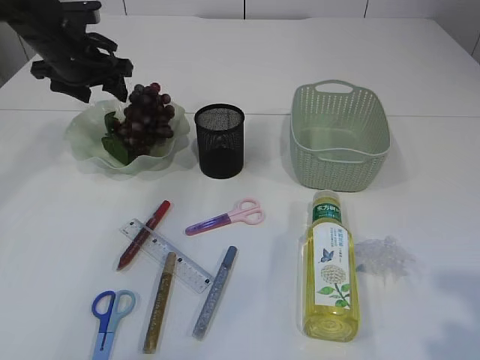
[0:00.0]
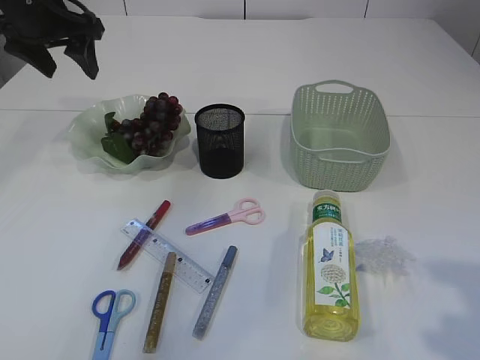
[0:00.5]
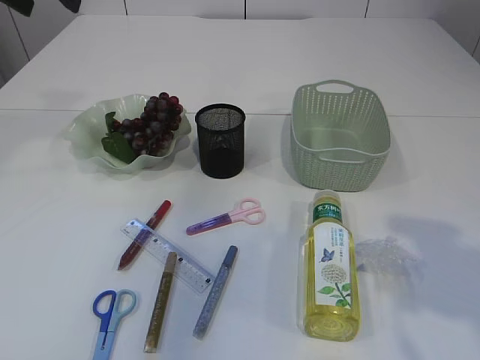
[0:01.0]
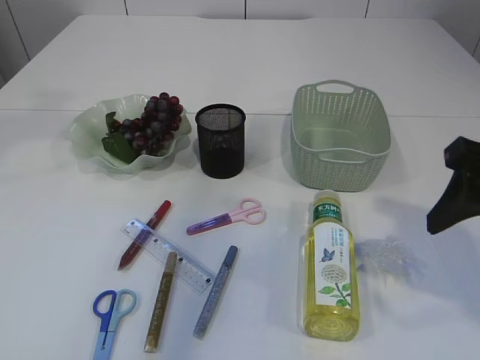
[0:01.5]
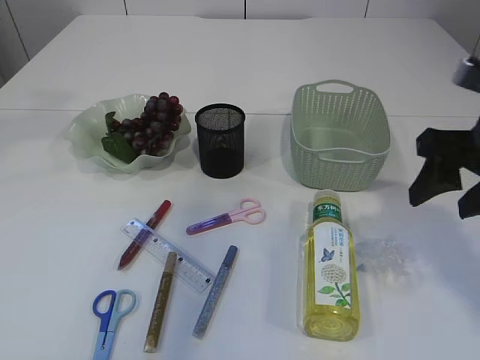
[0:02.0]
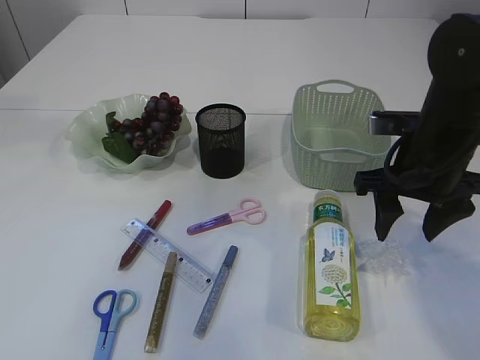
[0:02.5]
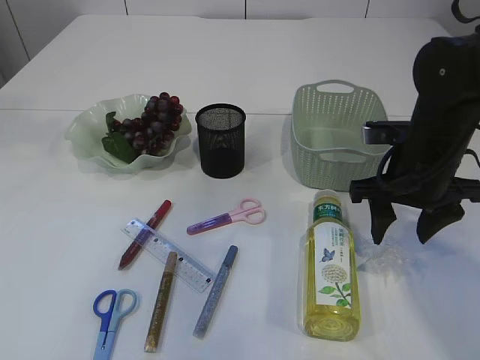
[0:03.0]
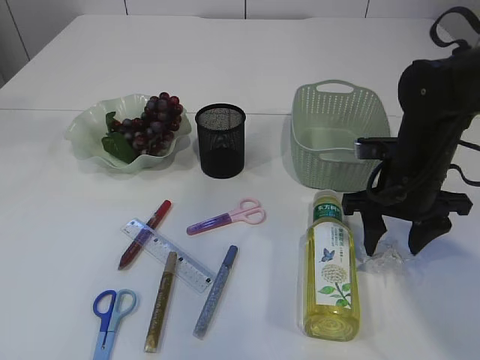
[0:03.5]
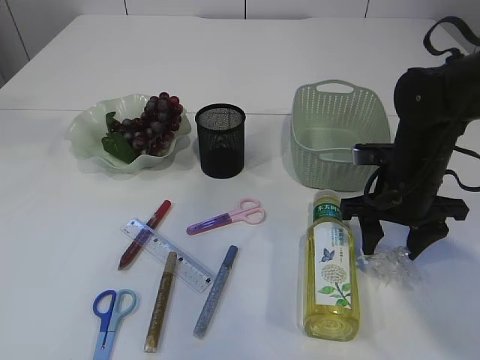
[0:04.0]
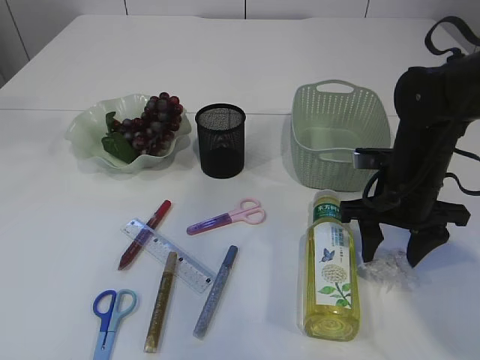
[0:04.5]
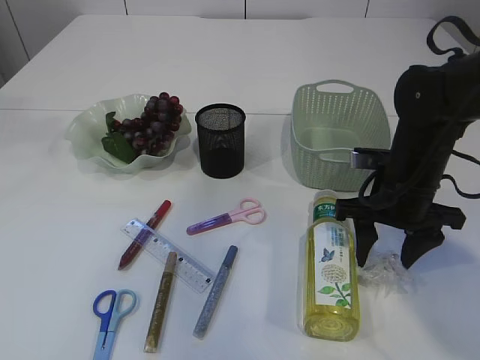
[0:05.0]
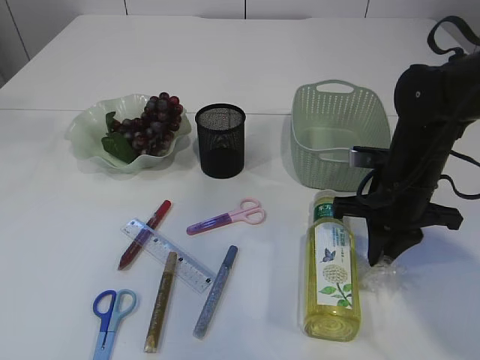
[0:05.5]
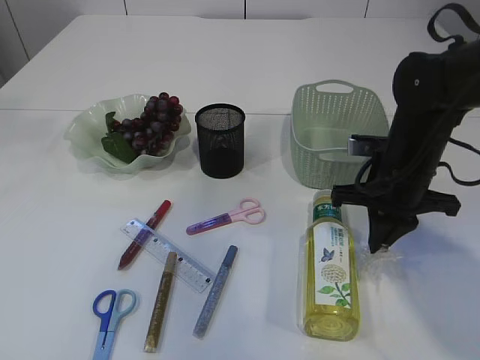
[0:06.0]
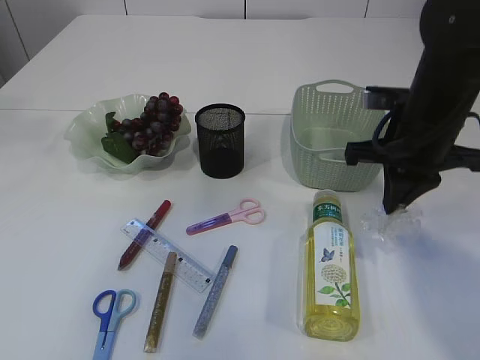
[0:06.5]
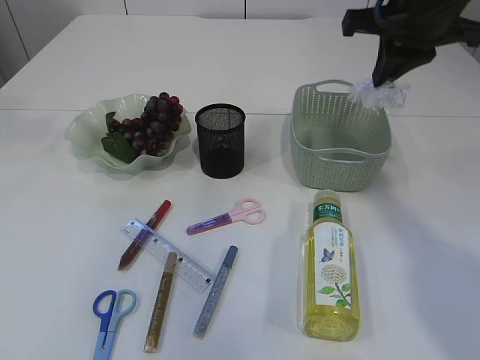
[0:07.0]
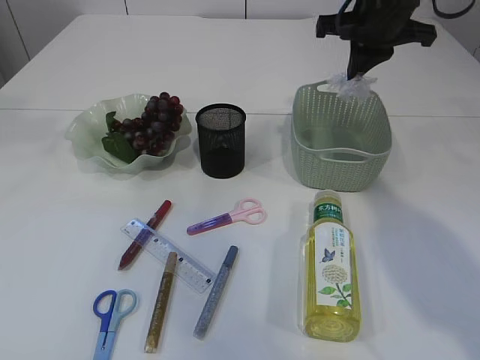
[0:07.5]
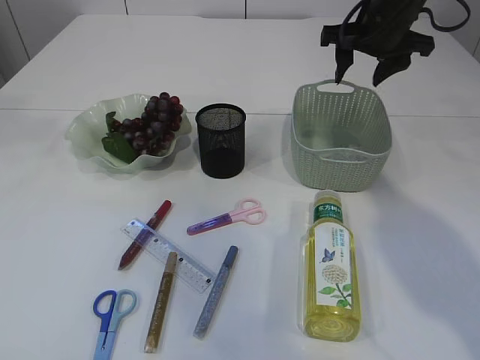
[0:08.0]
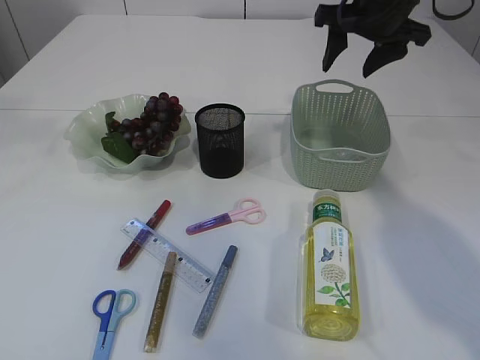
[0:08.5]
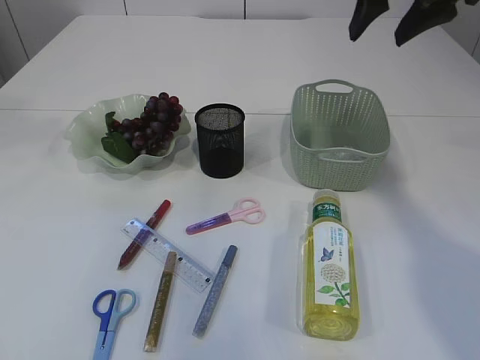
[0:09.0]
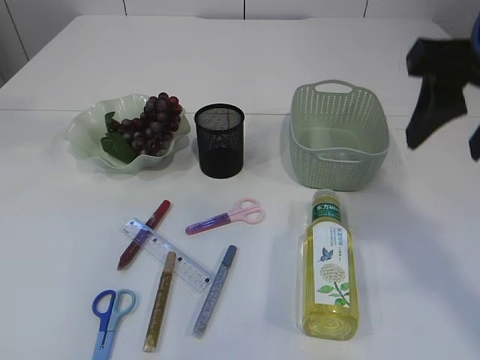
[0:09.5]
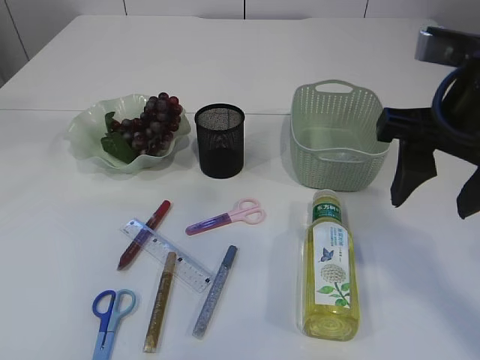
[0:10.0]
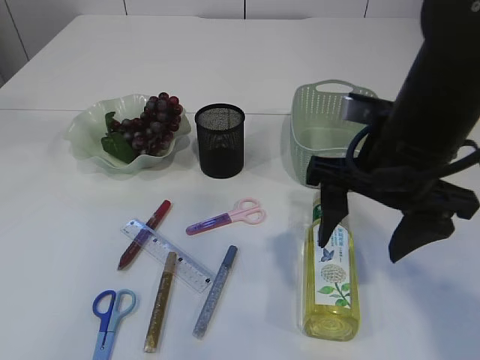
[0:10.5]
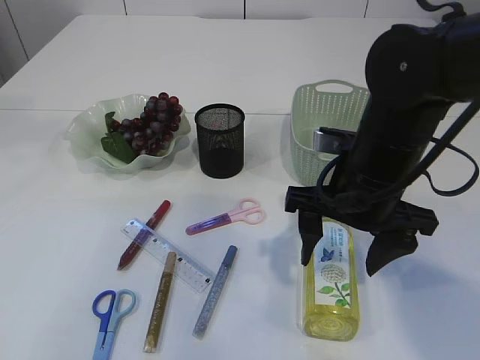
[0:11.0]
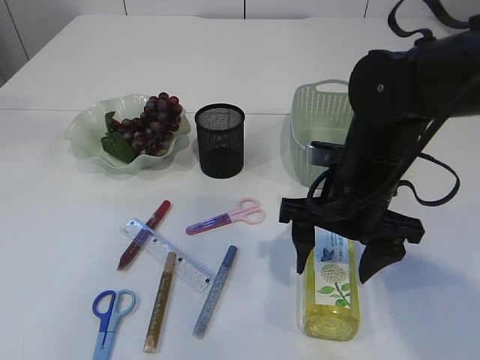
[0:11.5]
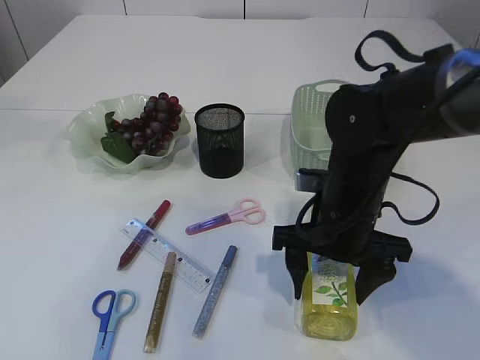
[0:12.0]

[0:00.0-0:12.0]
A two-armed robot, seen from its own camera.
Step, 0:00.5 to 0:06.5: Pick up the plastic.
Step, 0:07.0 to 0:08.5: Place the plastic in the basket.
0:00.0 to 0:02.0: The right gripper shifts about 20 cm forward. The left gripper heads upward and backward, covering about 25 cm.
0:02.0 to 0:04.0: The right gripper goes some 15 cm downward and forward.
0:04.0 to 0:06.0: The right gripper closes its fingers.
0:06.0 to 0:08.0: The right gripper heads forward and upward, covering about 20 cm, and opens up.
0:08.0 to 0:10.0: The right gripper goes roughly 25 cm backward.
0:10.0 to 0:12.0: The right gripper shifts approximately 15 cm downward and to the left.

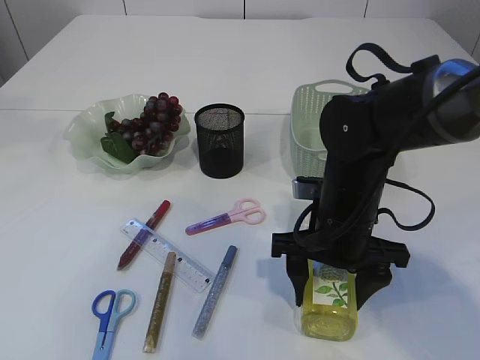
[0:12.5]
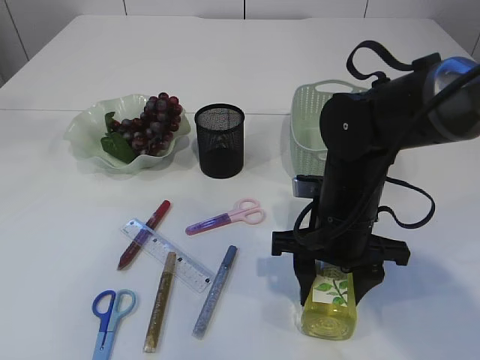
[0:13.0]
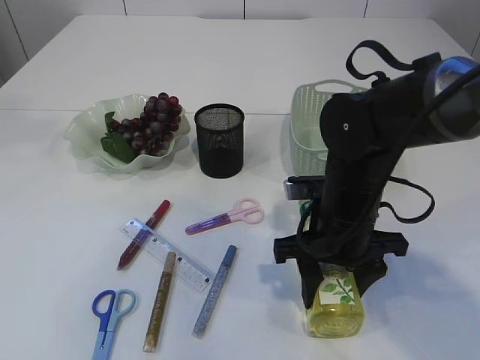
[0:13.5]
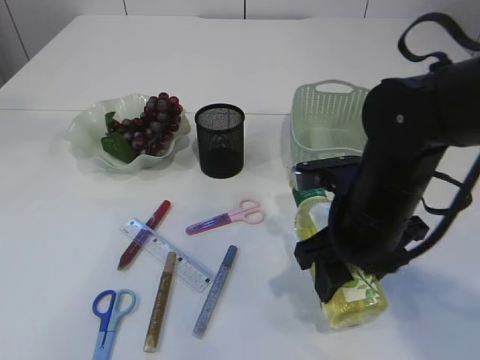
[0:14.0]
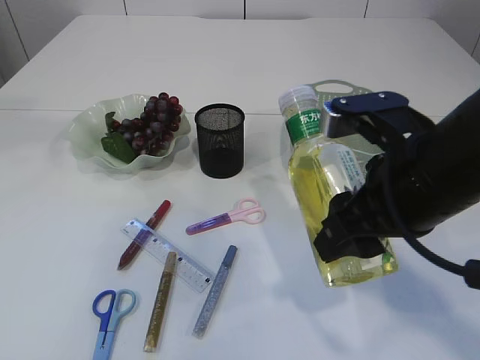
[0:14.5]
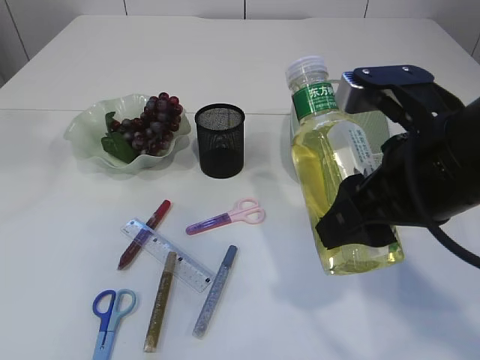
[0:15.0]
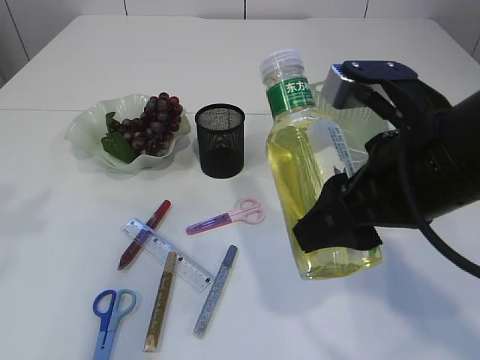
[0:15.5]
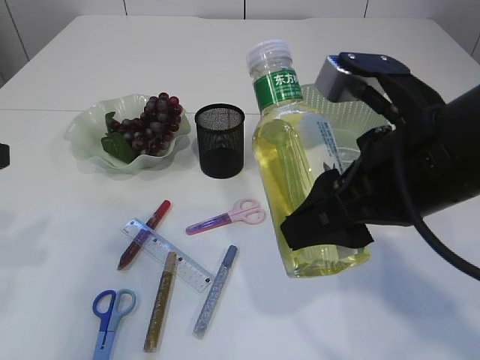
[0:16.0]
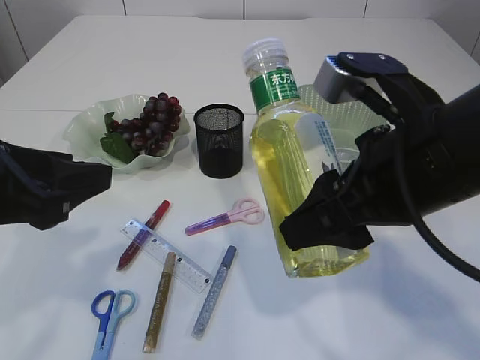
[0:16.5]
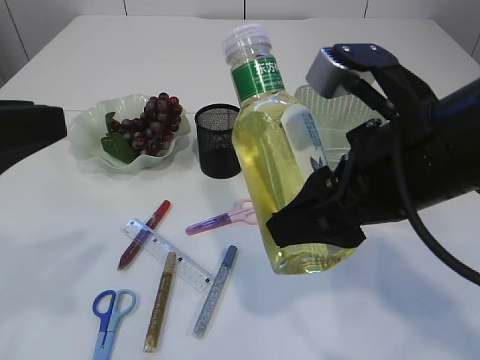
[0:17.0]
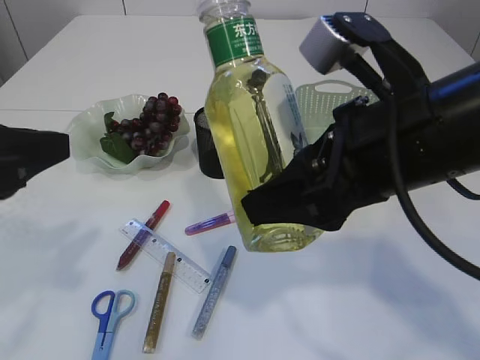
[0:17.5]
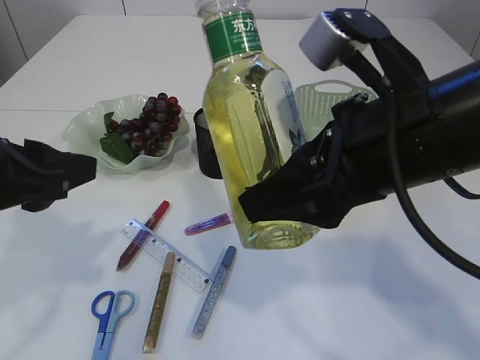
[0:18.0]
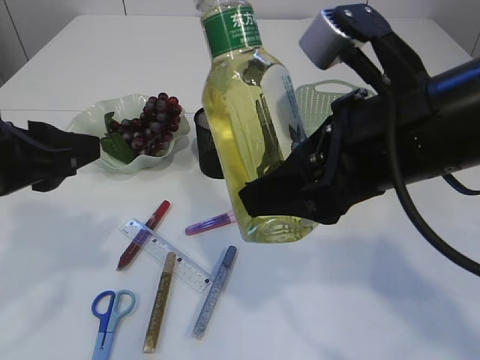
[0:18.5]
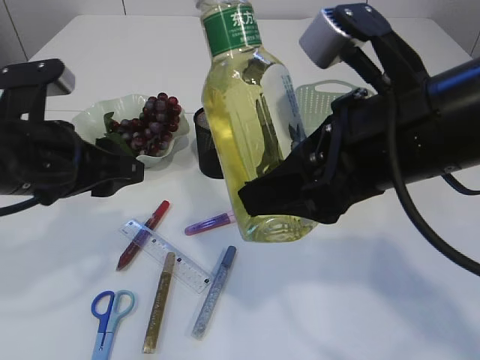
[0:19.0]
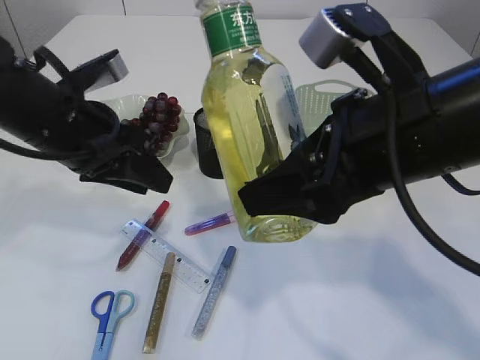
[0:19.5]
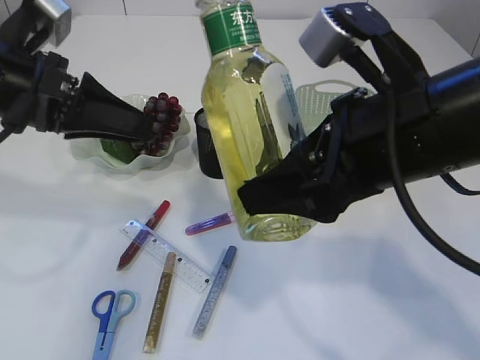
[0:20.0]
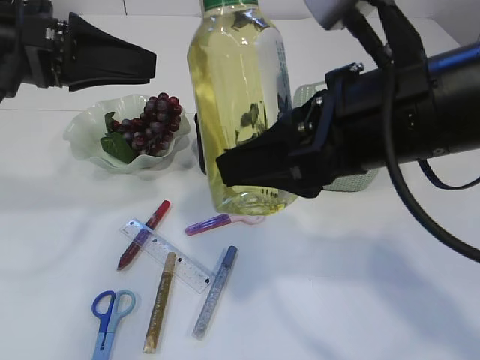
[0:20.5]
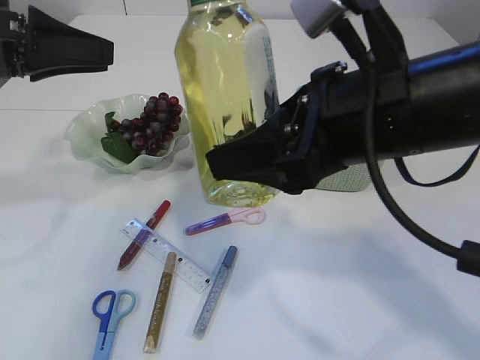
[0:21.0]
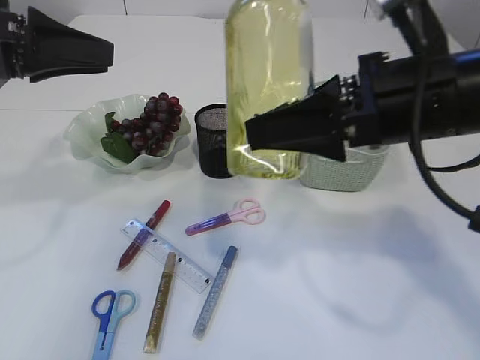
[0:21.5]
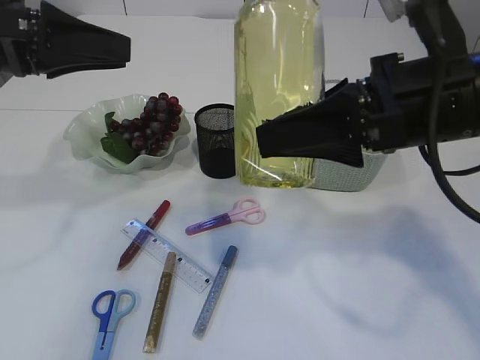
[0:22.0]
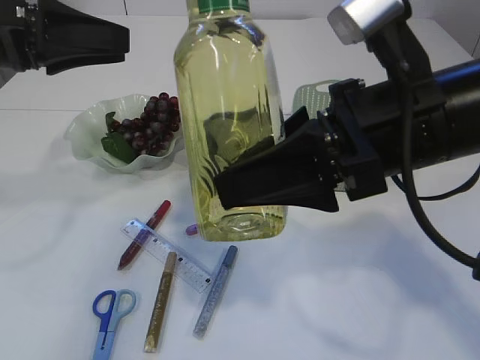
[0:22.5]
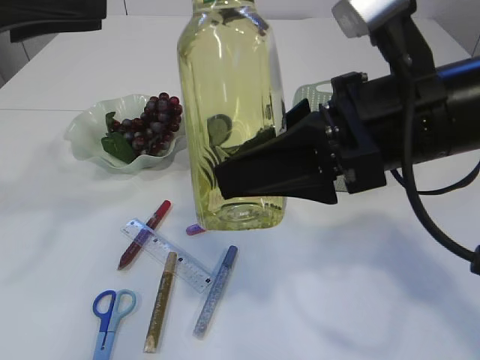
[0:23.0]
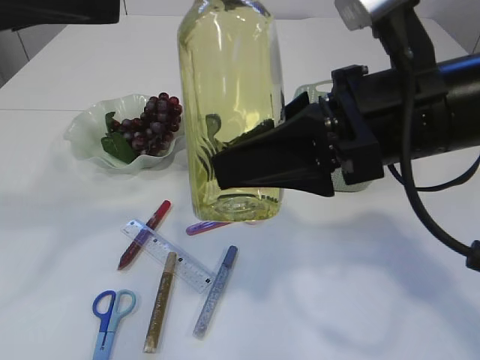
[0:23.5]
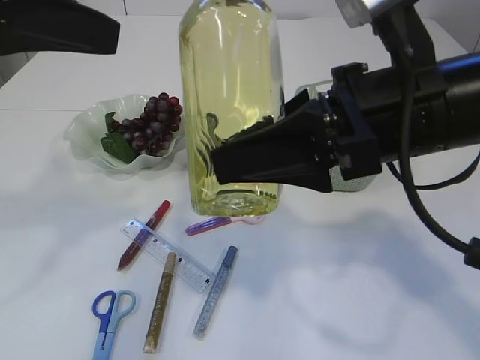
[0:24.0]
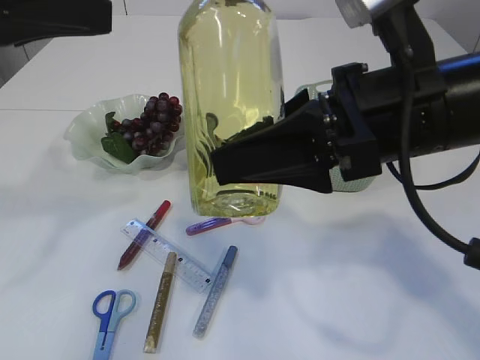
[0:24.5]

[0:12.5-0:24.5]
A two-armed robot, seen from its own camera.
0:12.5 to 0:14.5: The right gripper travels upward and backward by about 15 cm.
0:14.5 to 0:16.5: The left gripper goes roughly 30 cm downward and backward.
0:18.5 to 0:20.5: The left gripper moves forward, about 10 cm.

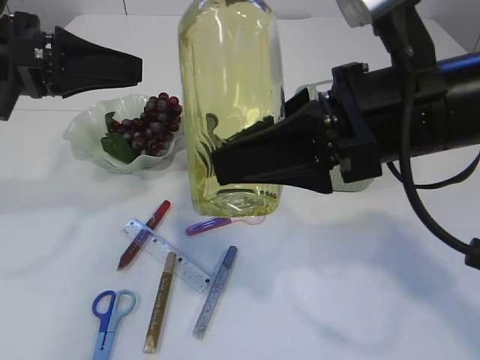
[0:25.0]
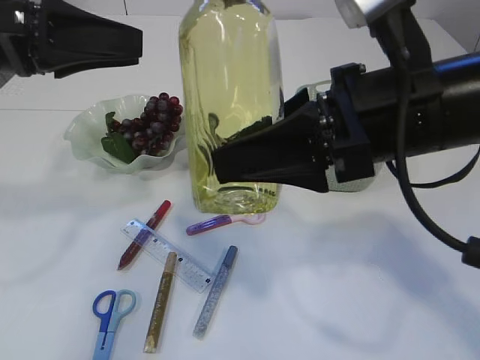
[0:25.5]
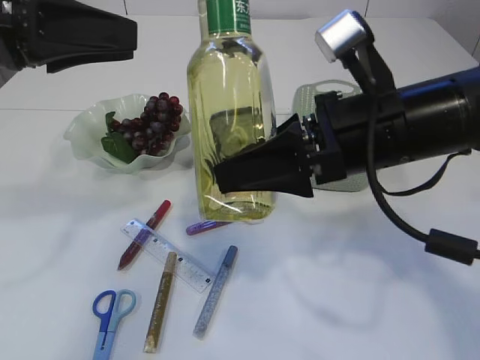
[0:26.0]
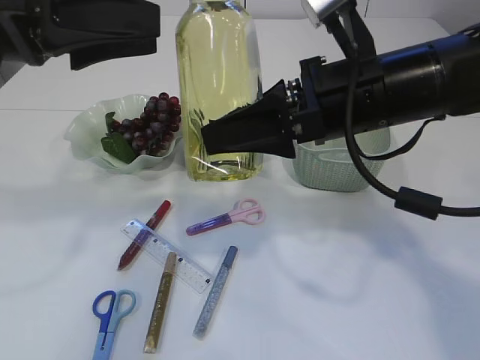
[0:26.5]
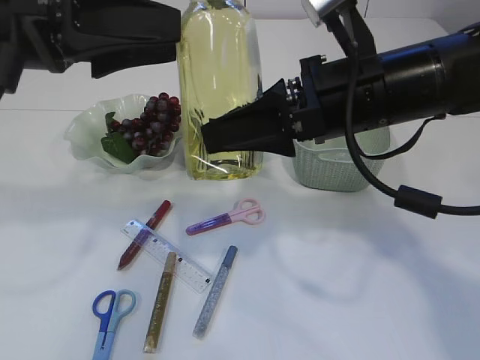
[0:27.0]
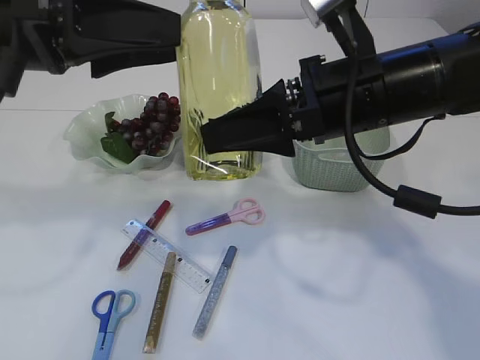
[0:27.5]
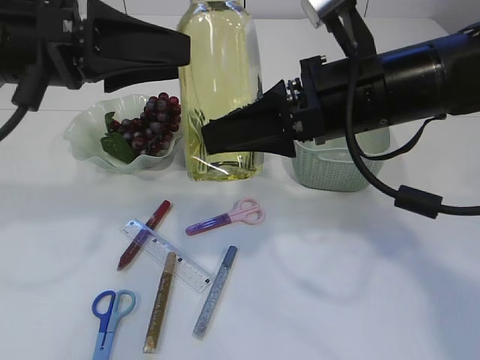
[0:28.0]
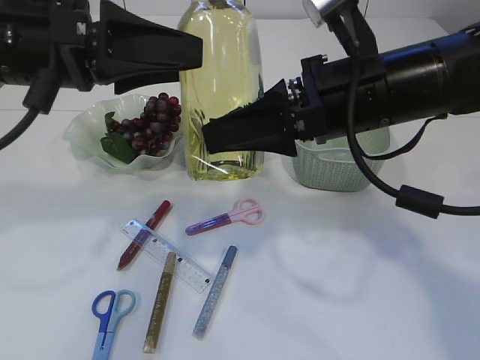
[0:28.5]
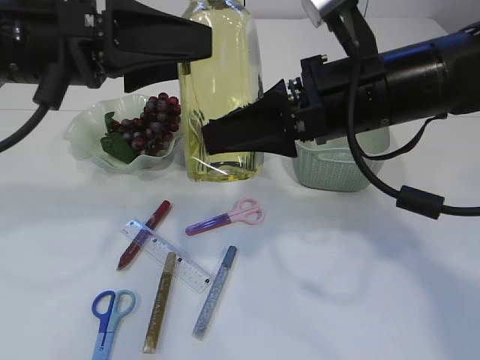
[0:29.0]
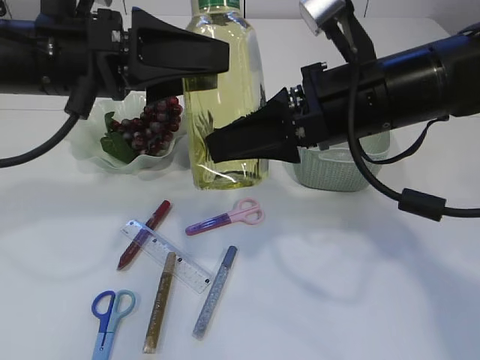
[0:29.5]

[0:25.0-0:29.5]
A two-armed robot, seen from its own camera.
0:25.0 to 0:27.0: The left gripper shifts by approximately 5 cm, and opens up; the right gripper moves forward, some 5 cm.
0:27.0 to 0:29.5: The left gripper changes place by approximately 5 cm.
